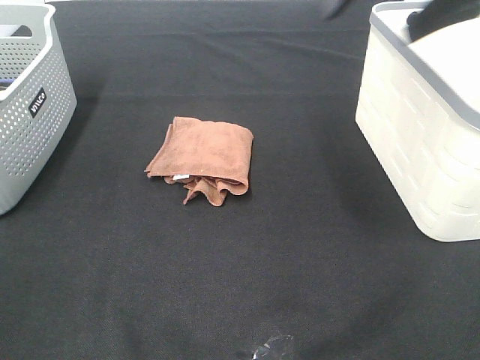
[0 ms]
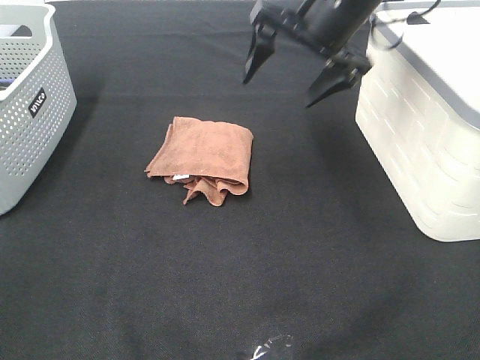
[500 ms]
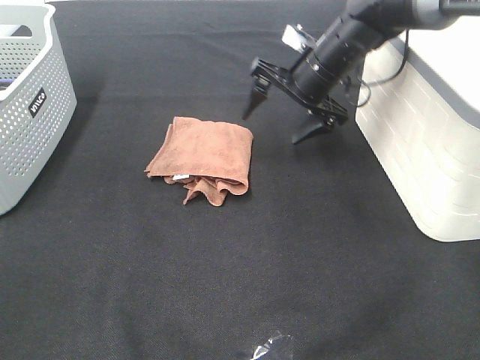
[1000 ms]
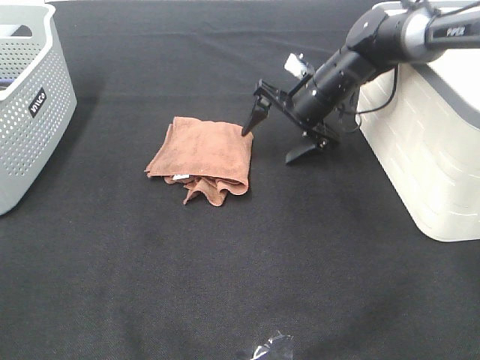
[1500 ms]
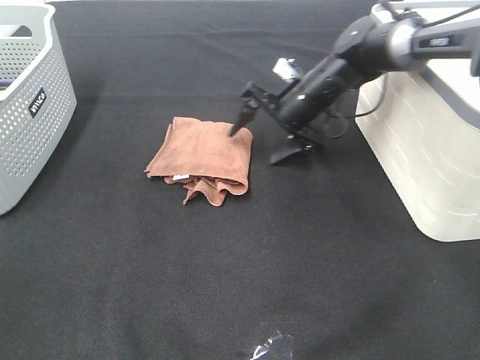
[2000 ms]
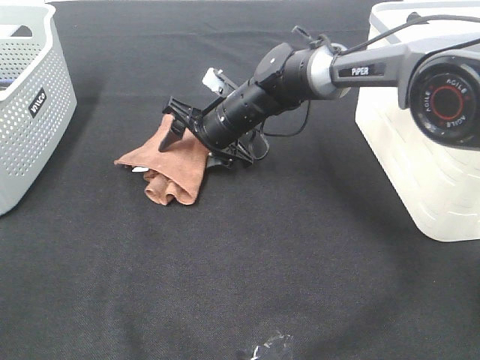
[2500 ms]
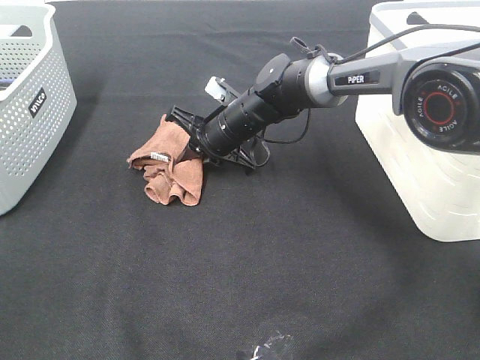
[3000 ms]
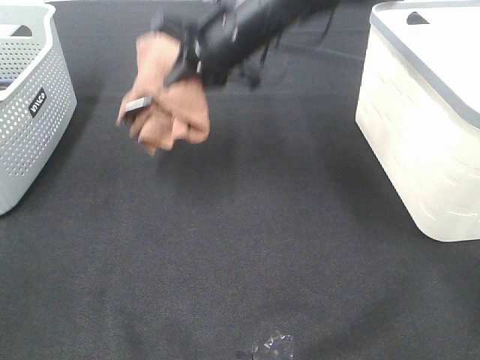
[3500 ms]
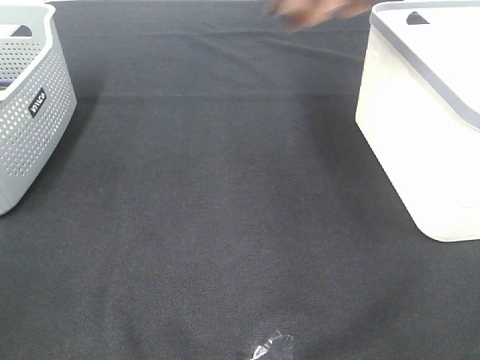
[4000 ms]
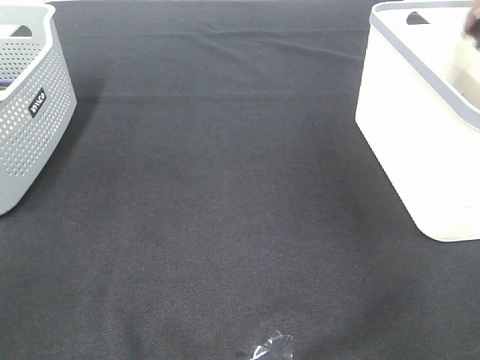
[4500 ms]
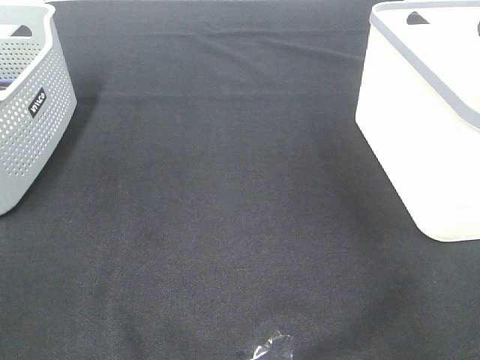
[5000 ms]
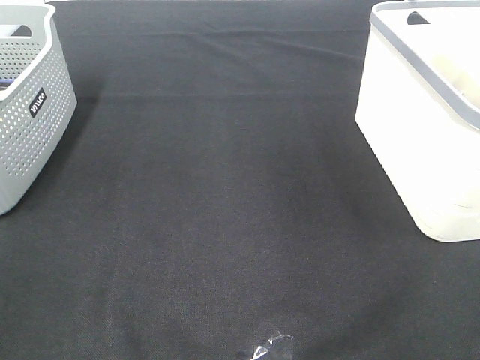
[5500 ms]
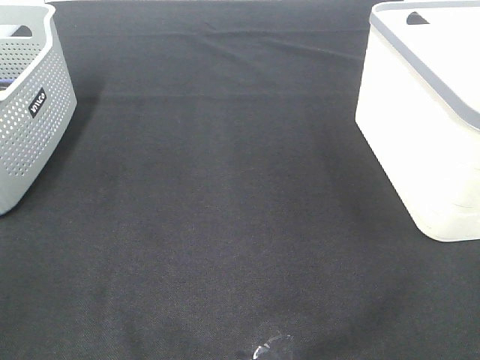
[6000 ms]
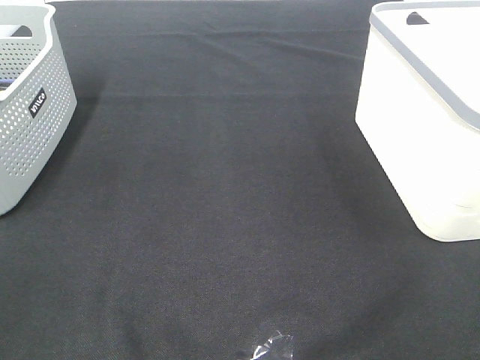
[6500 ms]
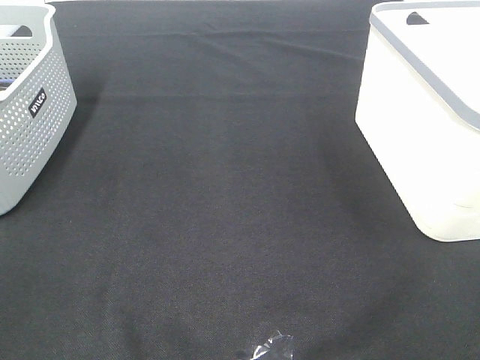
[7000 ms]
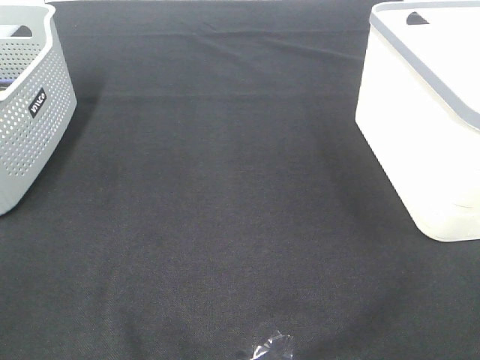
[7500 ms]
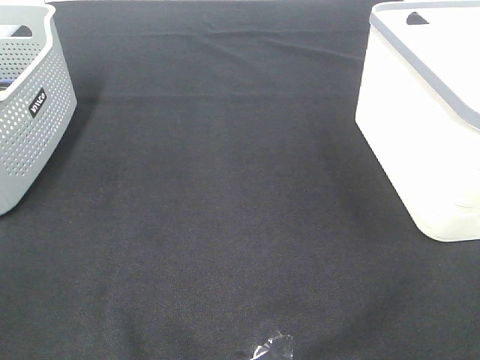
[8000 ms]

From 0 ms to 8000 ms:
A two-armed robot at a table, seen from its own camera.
Step, from 0 ms to 2500 ms: Right hand: grab the folded brown towel.
Step, from 3000 ms to 4500 ms: Right hand: place the brown towel in right basket.
From 0 ms to 2000 ms: The right gripper is displaced downward and forward by about 30 cm.
From 2000 ms to 4000 ms: The right gripper travels upward by about 30 cm, and closes.
From 4000 ms to 6000 ms: The right gripper travels backward by approximately 20 cm, and opens.

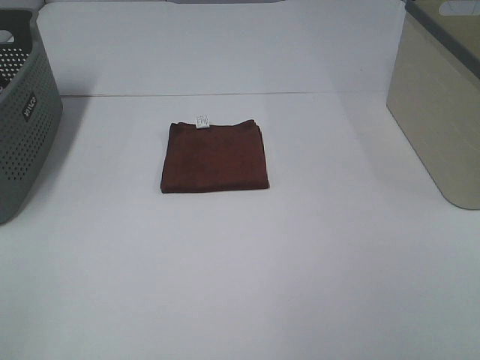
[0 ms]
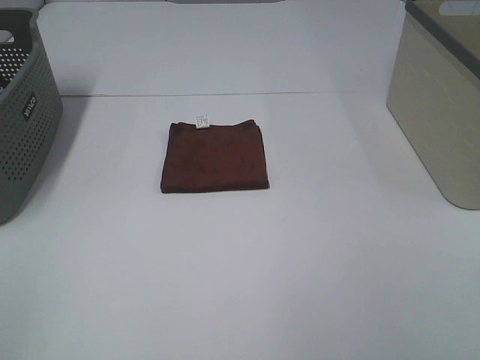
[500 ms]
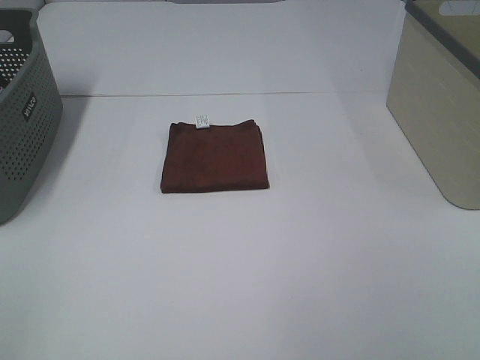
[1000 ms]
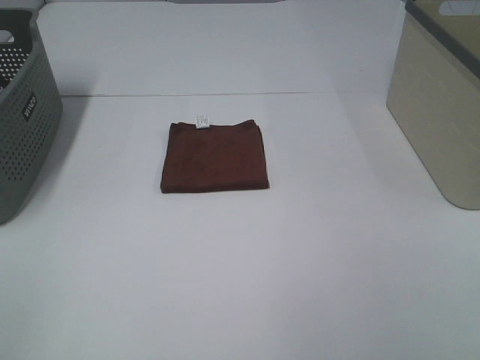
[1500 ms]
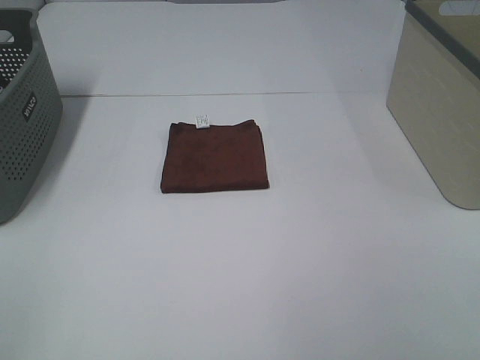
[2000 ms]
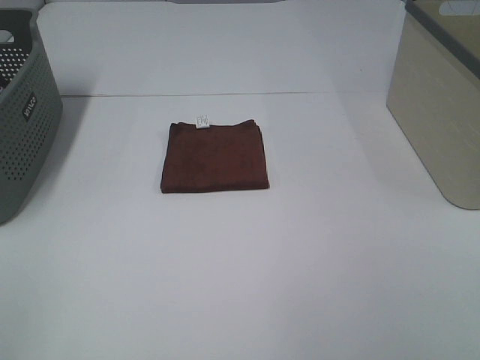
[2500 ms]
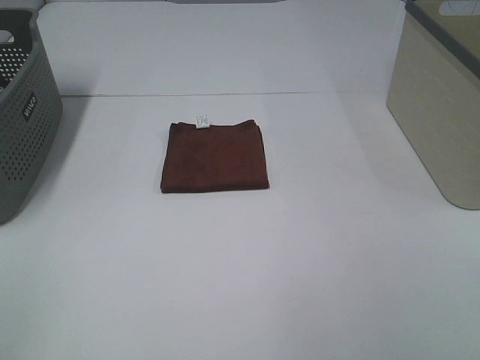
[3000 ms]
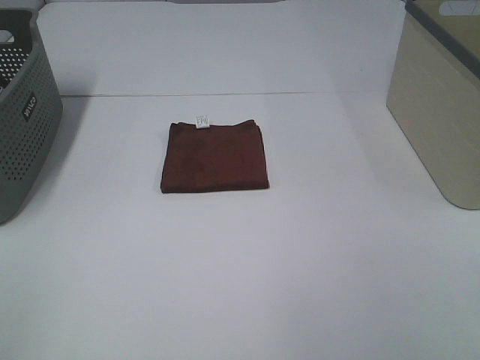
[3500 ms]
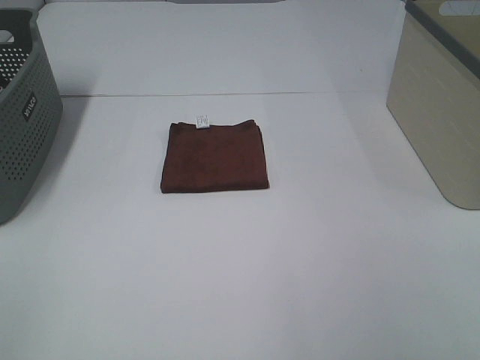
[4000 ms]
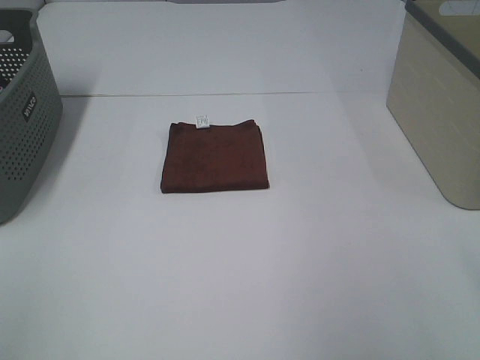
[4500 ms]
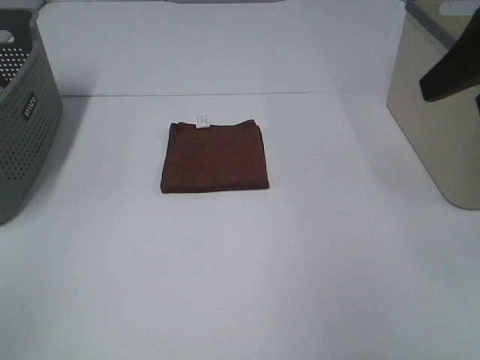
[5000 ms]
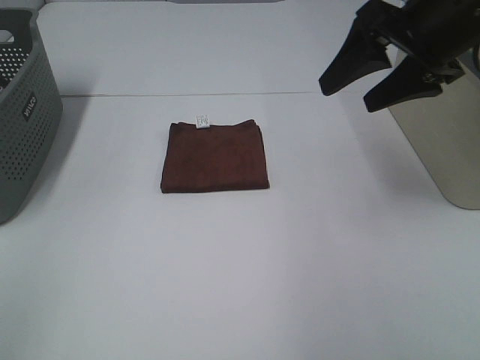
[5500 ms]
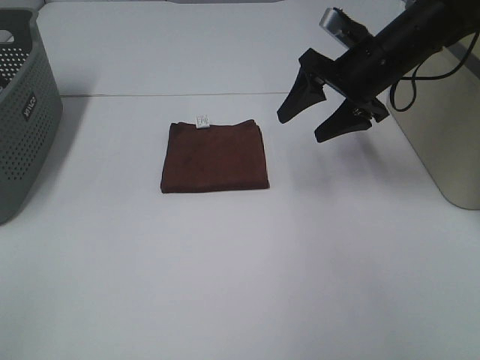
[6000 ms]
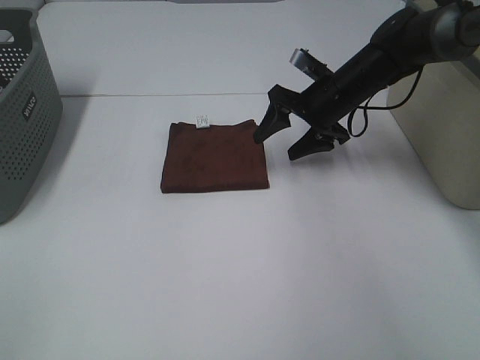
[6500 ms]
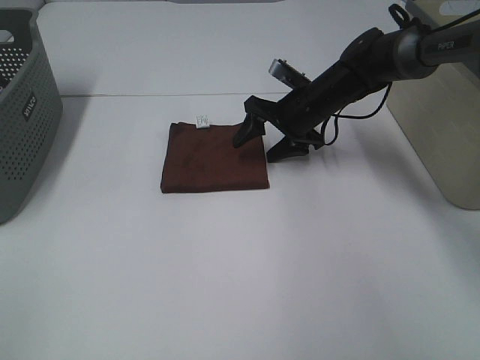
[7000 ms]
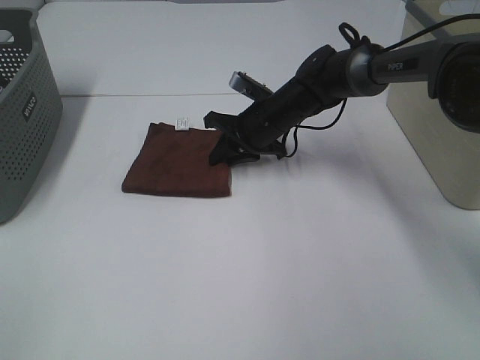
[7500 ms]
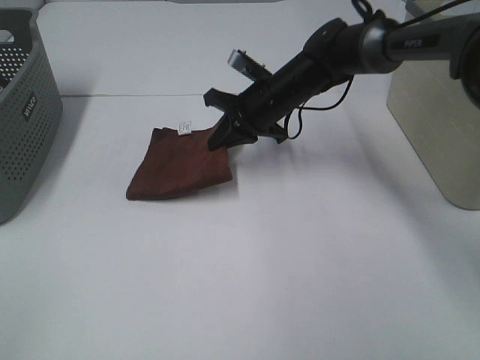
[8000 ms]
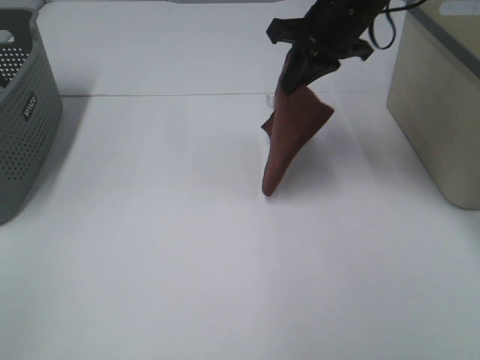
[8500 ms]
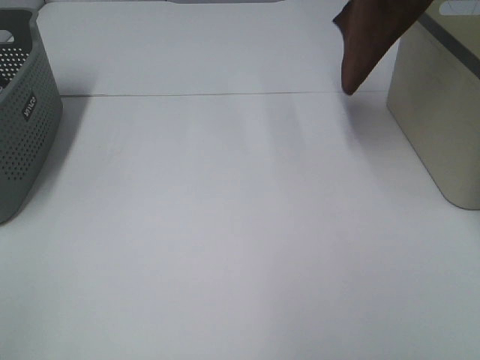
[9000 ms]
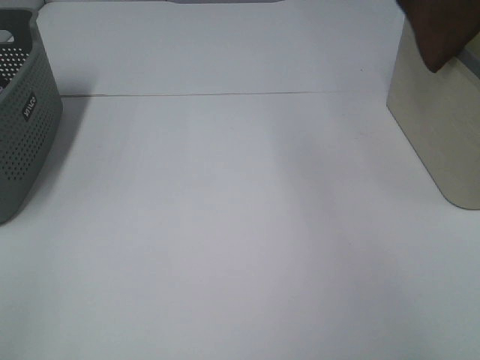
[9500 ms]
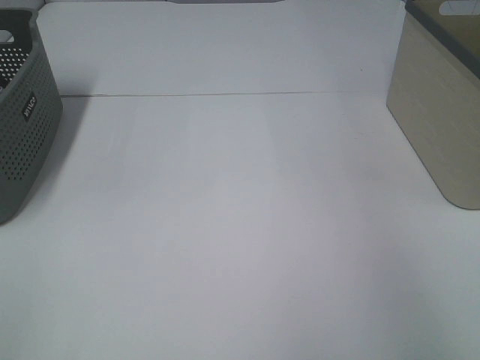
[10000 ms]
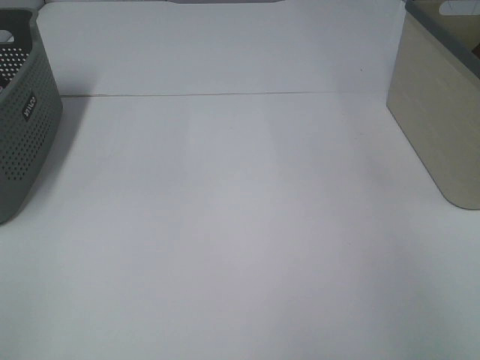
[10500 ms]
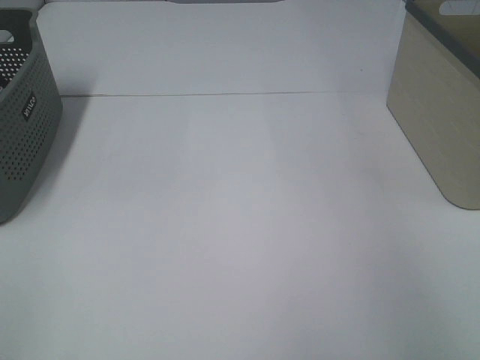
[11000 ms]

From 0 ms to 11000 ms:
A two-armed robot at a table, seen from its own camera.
Step, from 0 ms to 7500 ms: Right hand: grab the folded brown towel.
Step, from 8000 ms to 10500 ms: Right hand: place the brown towel in right basket.
From 0 ms to 3500 ms: Both grippers stay put.
From 3500 ms to 5500 ms: The right gripper moves forward, about 35 cm.
From 5500 ms to 7500 ms: The right gripper moves downward, to the left and forward, some 30 cm, and closes its fingers.
From 7500 ms to 9000 ms: The right gripper is displaced upward by about 30 cm.
From 9000 ms to 11000 ms: The right gripper shifts some 25 cm to the right, and opens its fingers.

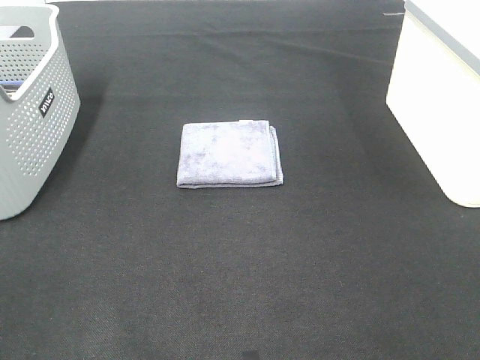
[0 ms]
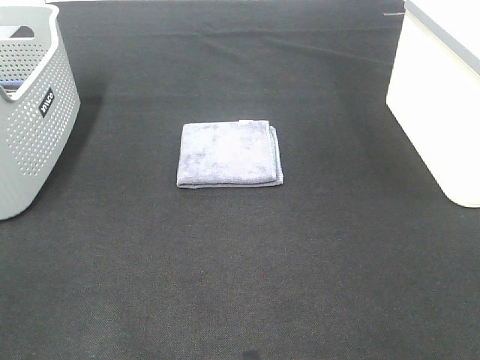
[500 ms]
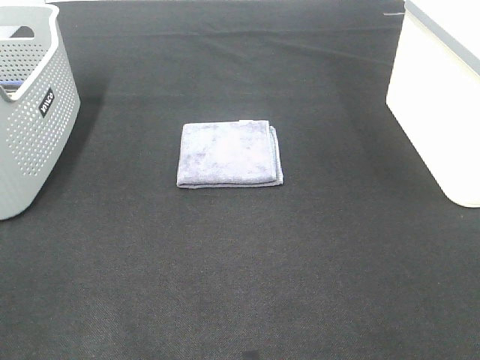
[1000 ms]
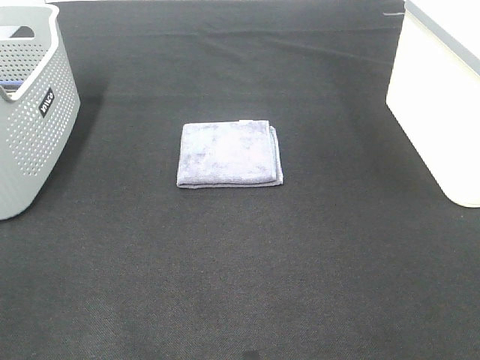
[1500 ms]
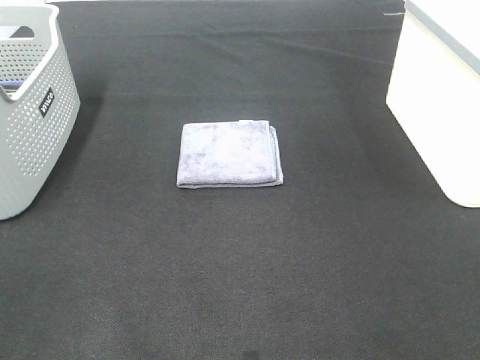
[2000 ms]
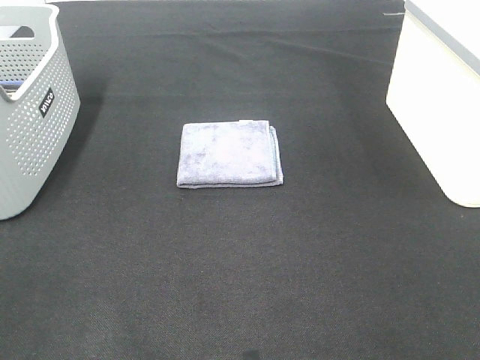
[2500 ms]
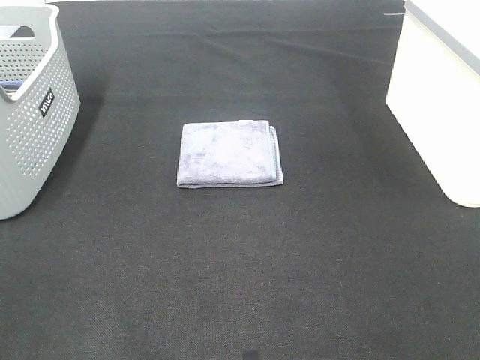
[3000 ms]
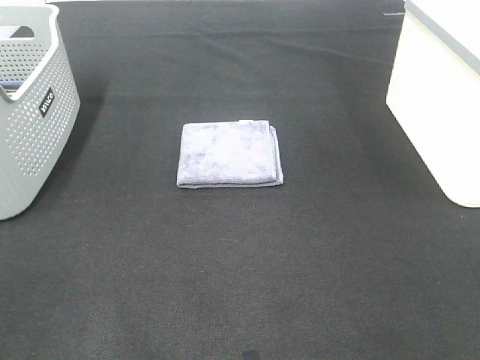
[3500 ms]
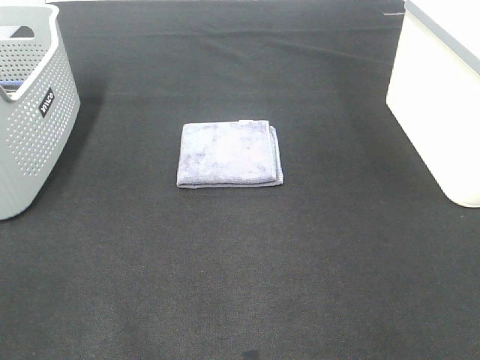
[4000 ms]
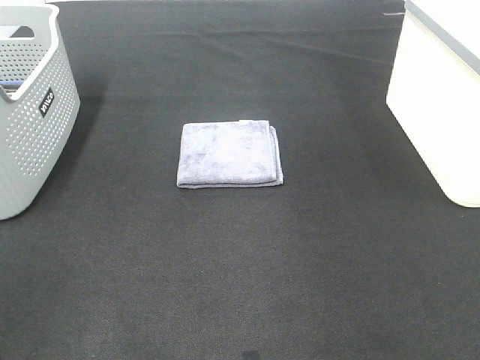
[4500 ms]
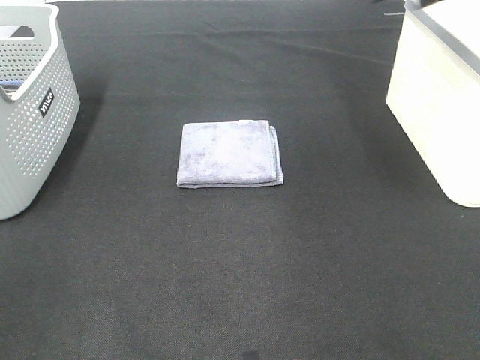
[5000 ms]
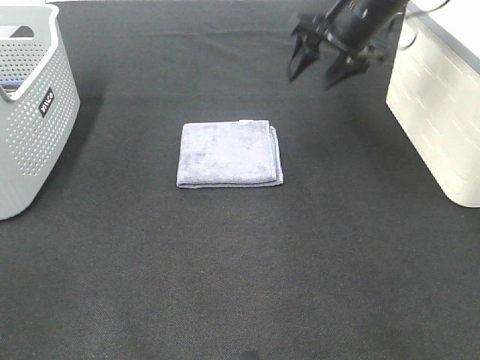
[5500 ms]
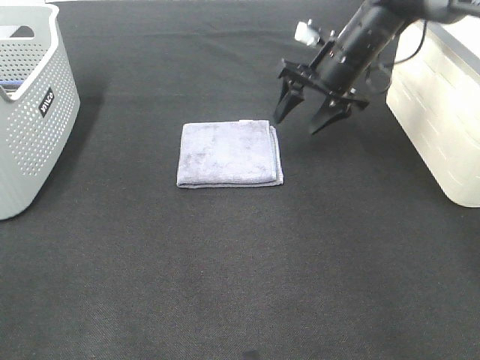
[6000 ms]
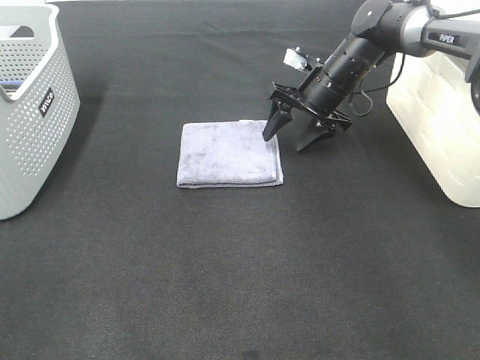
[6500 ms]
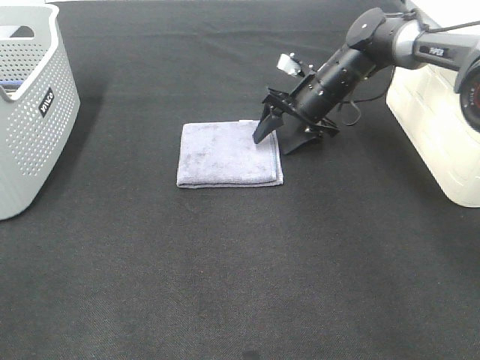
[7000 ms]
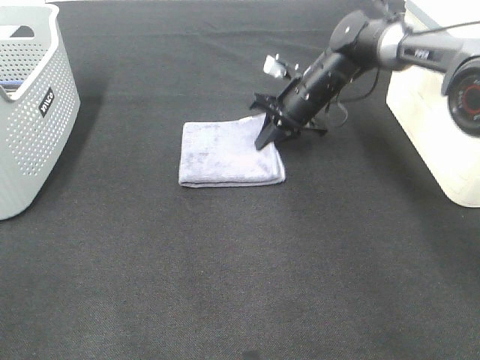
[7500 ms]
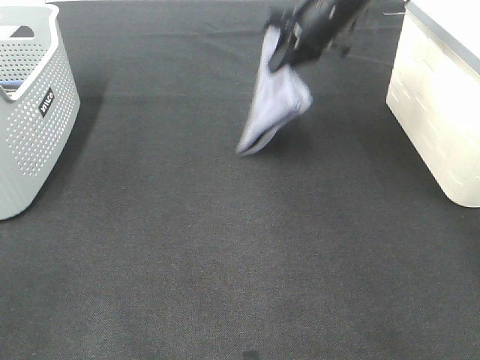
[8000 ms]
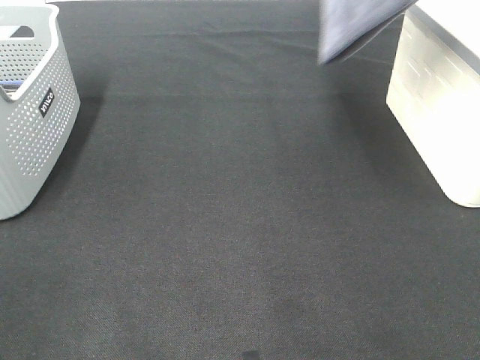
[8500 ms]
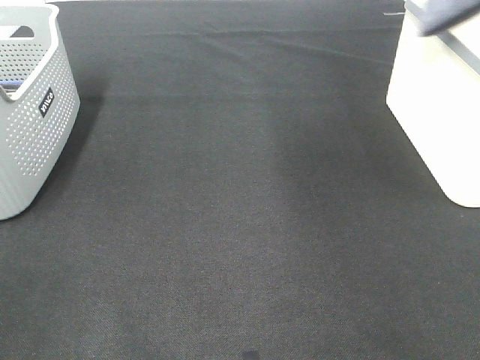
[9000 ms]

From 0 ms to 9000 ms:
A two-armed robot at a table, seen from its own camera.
Step, from 0 ms to 7000 ms: Right hand: grab the folded grey towel.
From 0 ms to 2000 ms: The two grippers keep their place.
From 4500 ms to 7000 ms: The right gripper heads downward, forward and to the left, covering roughly 40 cm.
From 7000 ms to 9000 ms: The right gripper travels upward and to the right by about 40 cm, and closes.
